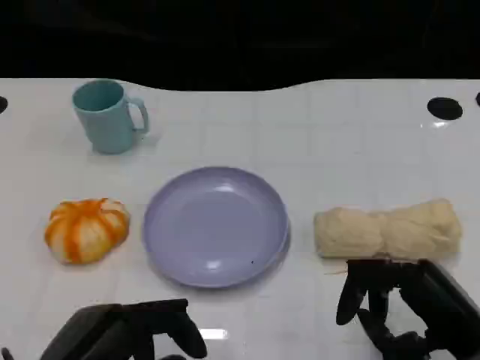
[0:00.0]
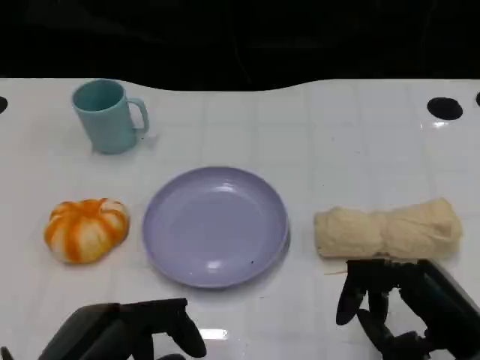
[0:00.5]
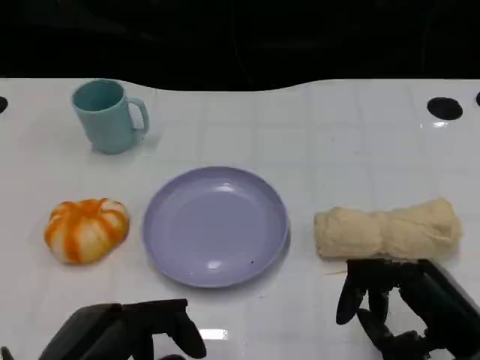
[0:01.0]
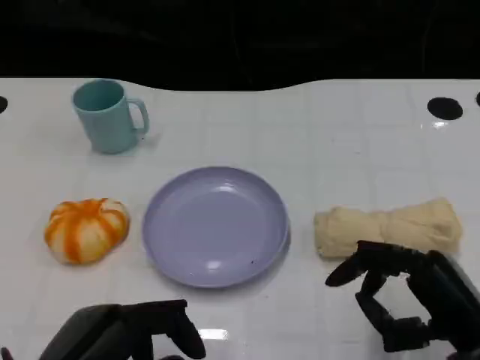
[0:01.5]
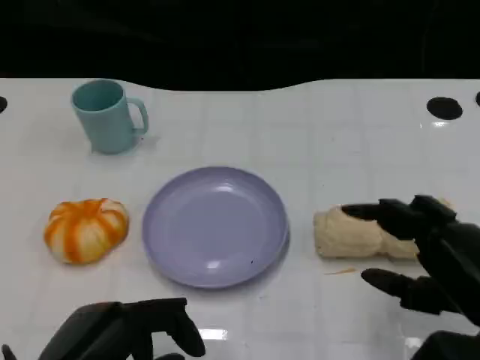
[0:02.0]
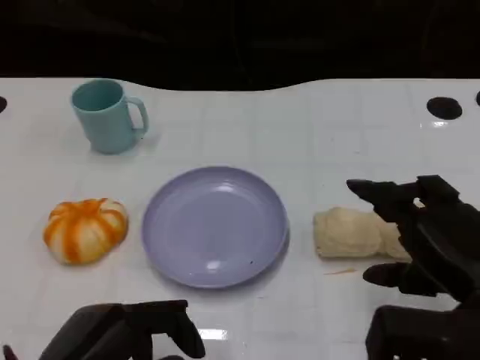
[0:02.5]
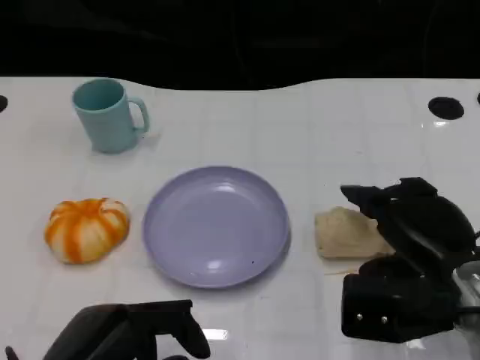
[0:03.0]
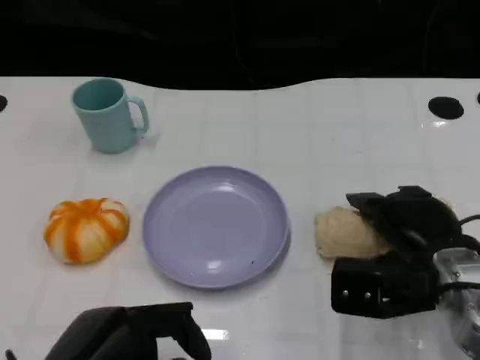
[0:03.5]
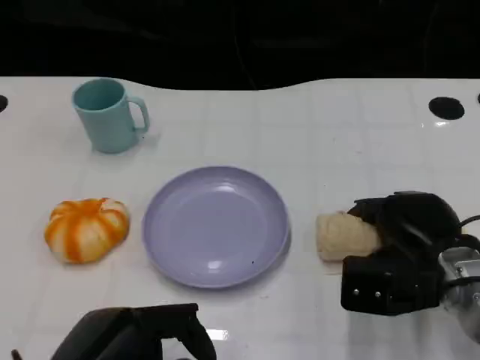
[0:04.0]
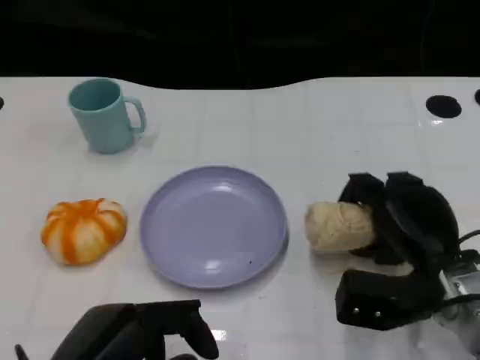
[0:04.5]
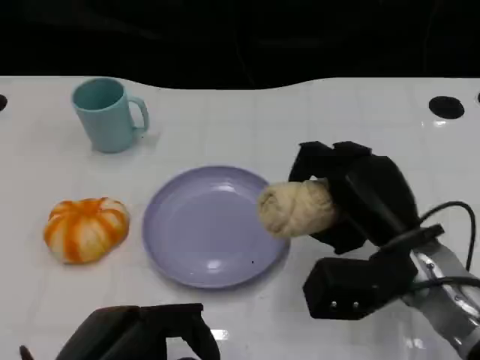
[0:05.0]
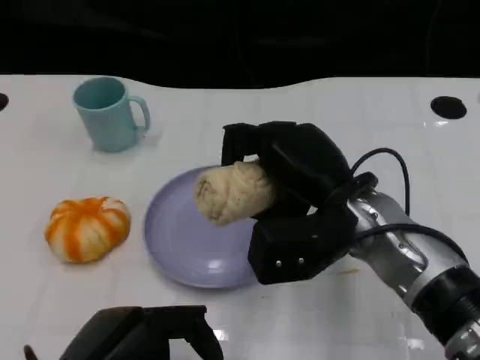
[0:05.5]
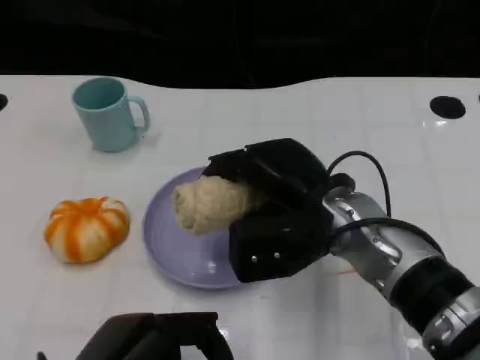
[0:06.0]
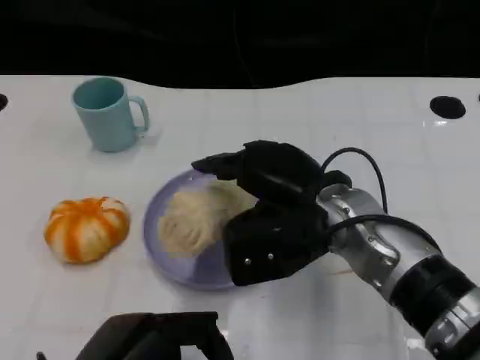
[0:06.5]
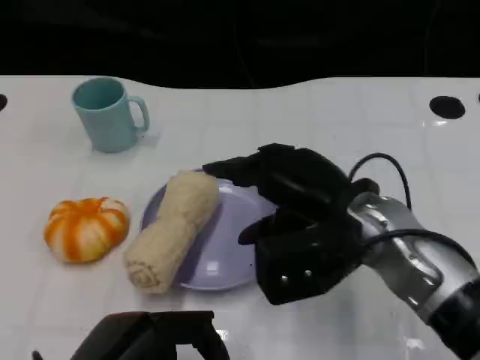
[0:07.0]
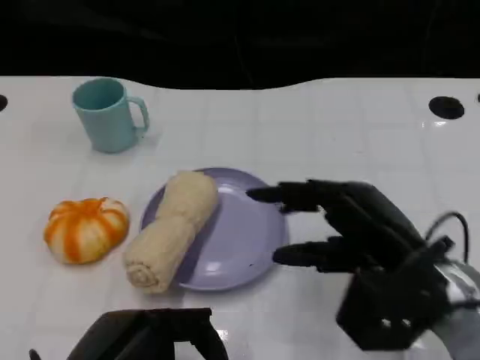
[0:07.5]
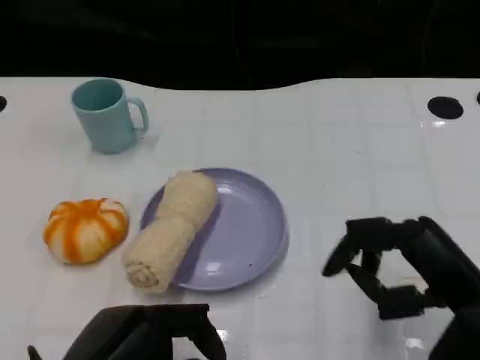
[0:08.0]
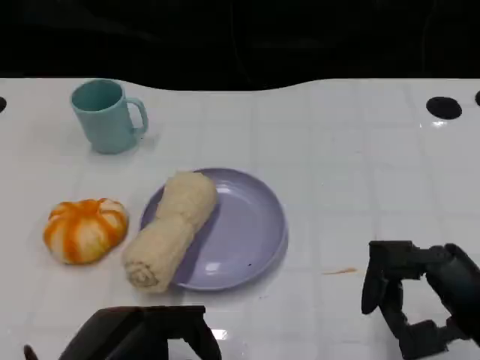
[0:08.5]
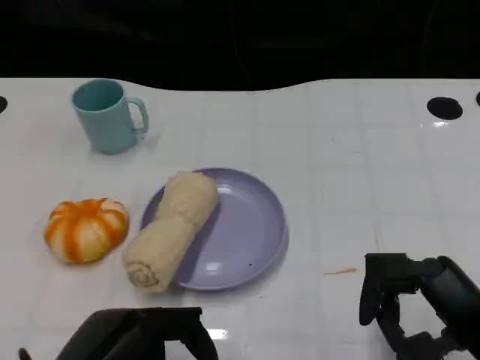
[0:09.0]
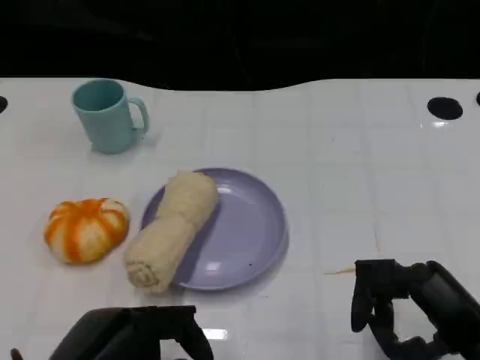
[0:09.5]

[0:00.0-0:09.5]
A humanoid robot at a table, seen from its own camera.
Task of the whole recording: Grasp the towel on the left side of the plate with the left hand and place it into the plate.
0:02.0 to 0:04.0: The right hand goes approximately 10 cm forward and downward.
0:04.0 to 0:05.5: The right hand moves to the left and upward, approximately 15 cm.
0:05.5 to 0:07.5: The right hand is displaced to the right and backward by approximately 10 cm.
0:07.5 to 0:09.5: The right hand travels backward and to the right by approximately 10 cm.

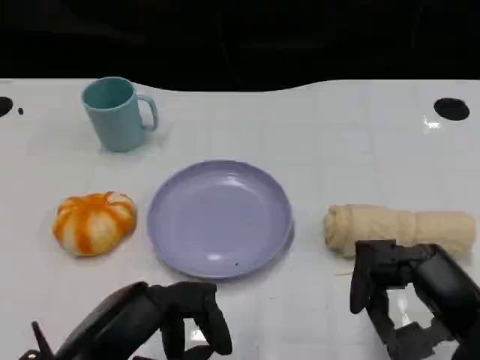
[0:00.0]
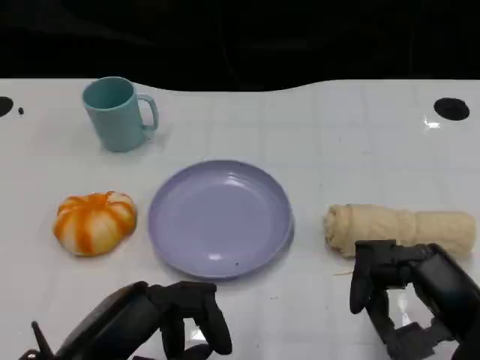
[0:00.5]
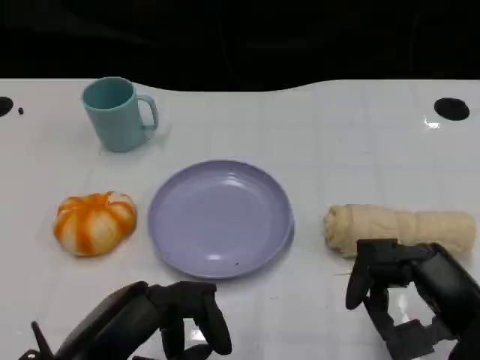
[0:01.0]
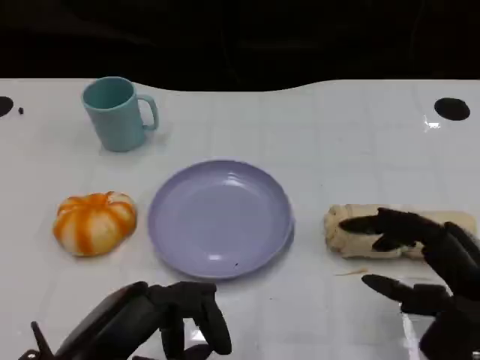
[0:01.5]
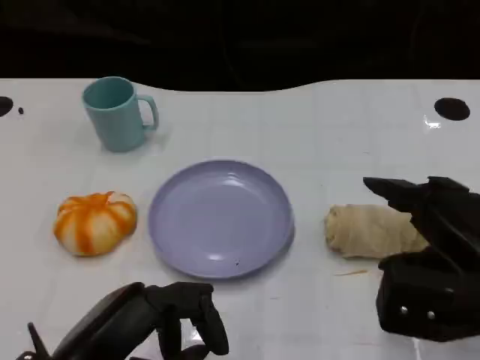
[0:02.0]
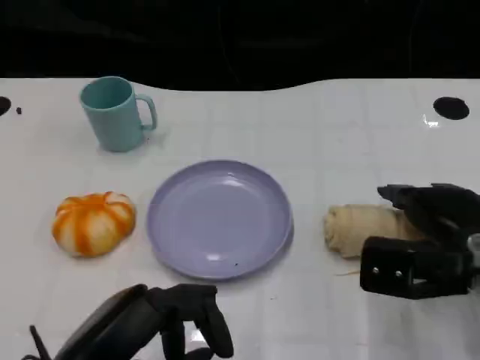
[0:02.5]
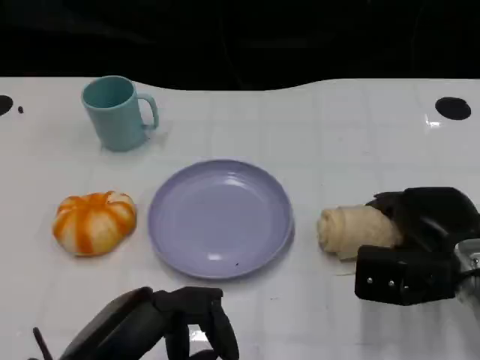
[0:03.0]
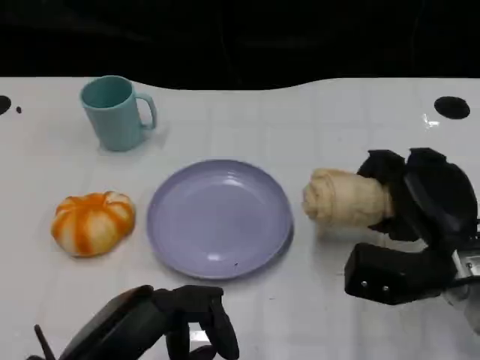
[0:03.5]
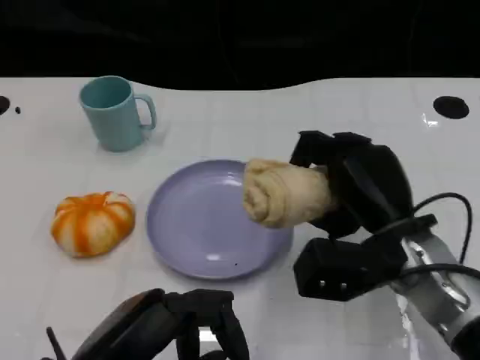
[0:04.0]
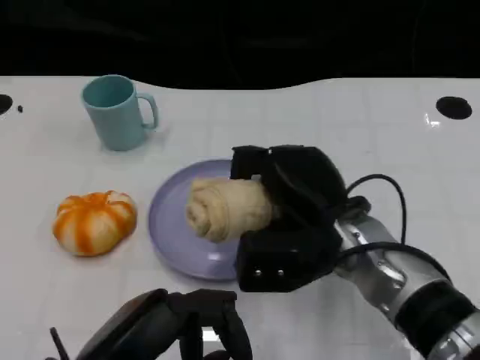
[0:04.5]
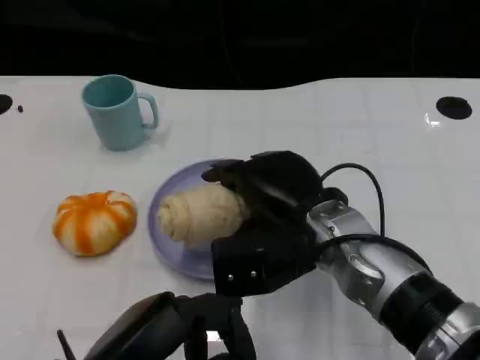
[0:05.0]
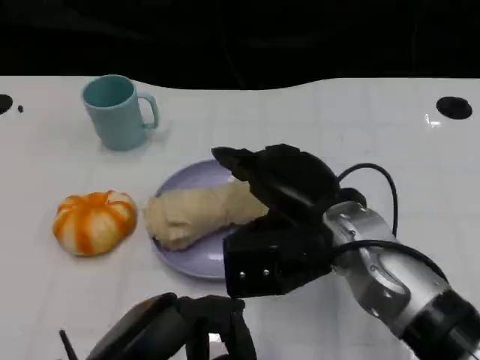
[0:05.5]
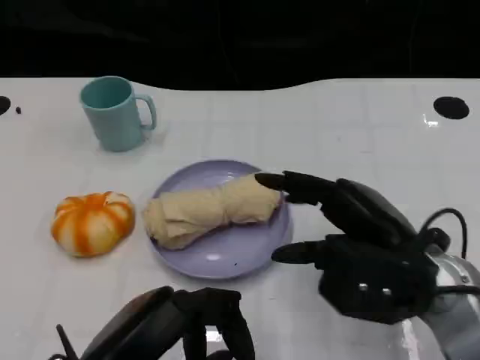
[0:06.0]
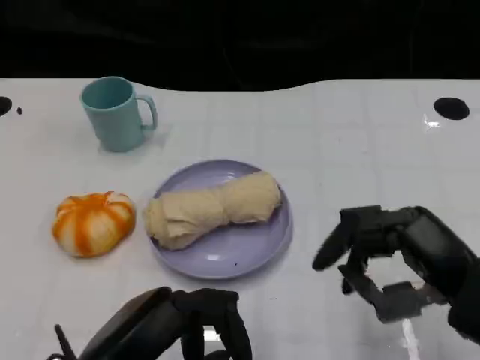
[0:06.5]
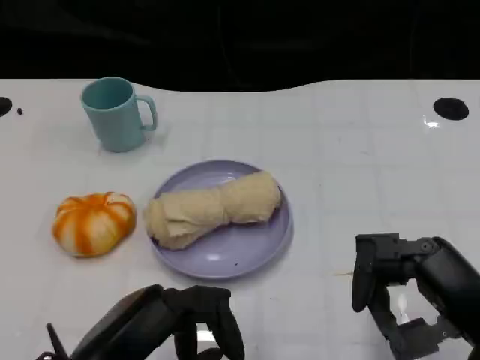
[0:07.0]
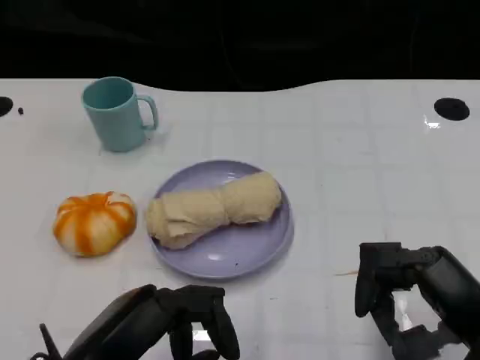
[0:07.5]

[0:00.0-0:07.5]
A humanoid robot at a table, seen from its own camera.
Task of the whole recording: Grasp the towel on the left side of the plate with the left hand and place it into the plate.
0:00.0 to 0:02.0: The right hand moves forward, some 5 cm.
0:02.0 to 0:04.0: The right hand heads to the left and forward, covering approximately 10 cm.
0:04.0 to 0:05.5: The right hand ends up roughly 5 cm from where it was.
0:05.5 to 0:07.5: The right hand goes approximately 15 cm to the right and backward.
